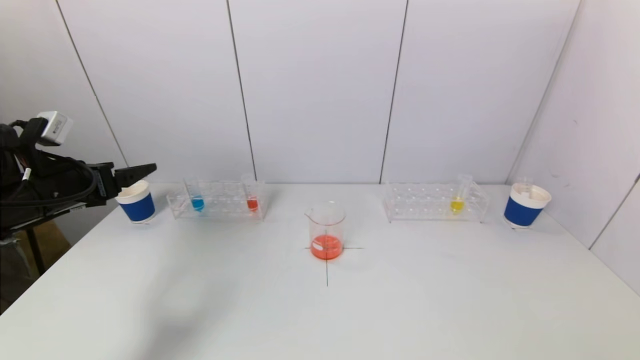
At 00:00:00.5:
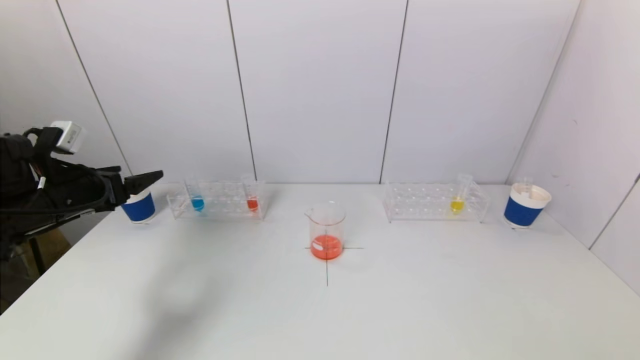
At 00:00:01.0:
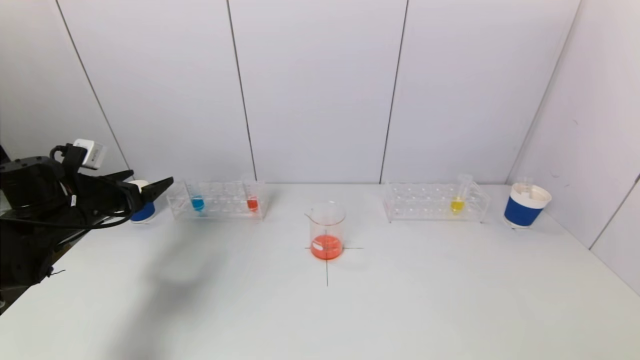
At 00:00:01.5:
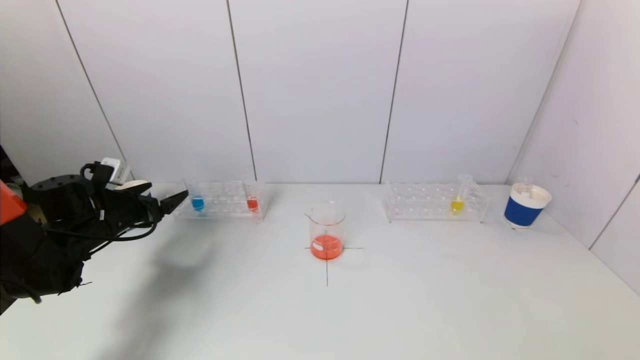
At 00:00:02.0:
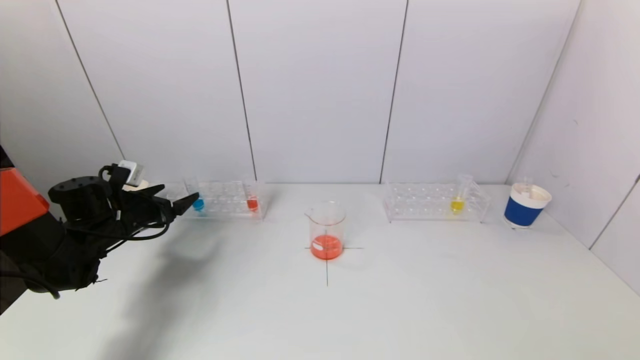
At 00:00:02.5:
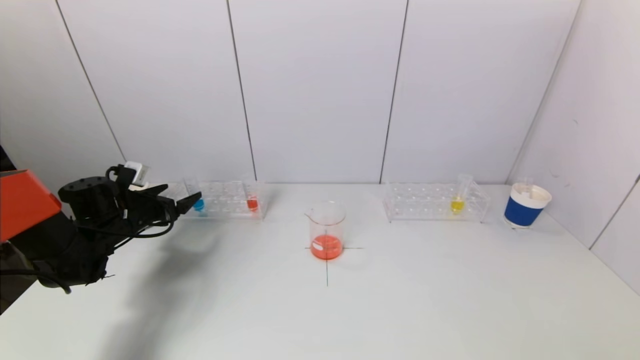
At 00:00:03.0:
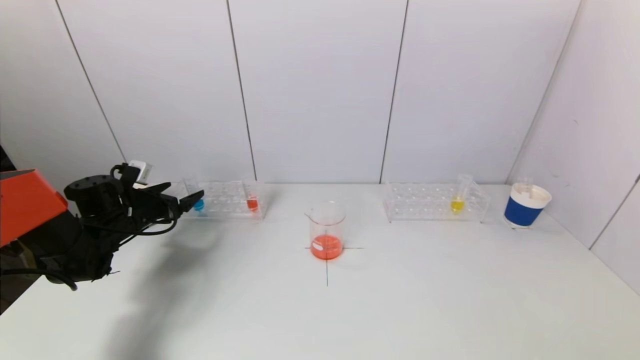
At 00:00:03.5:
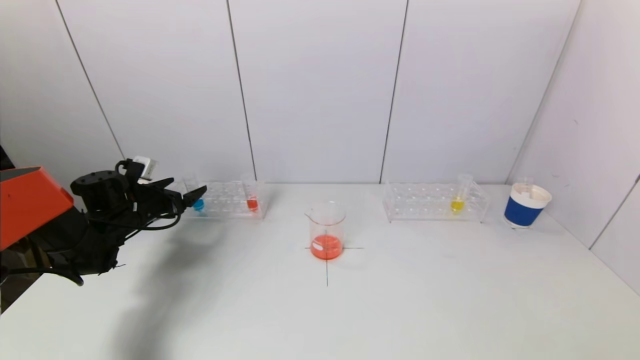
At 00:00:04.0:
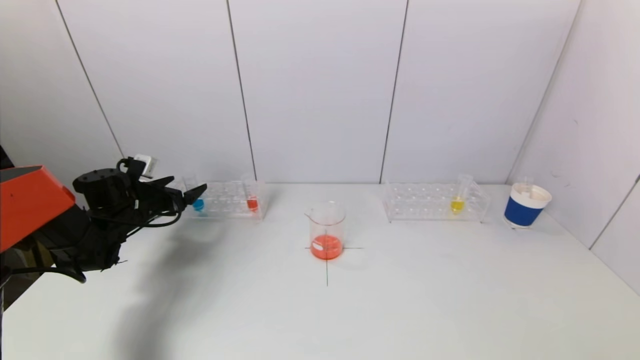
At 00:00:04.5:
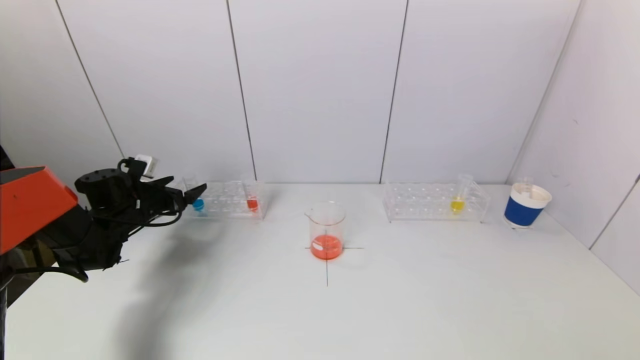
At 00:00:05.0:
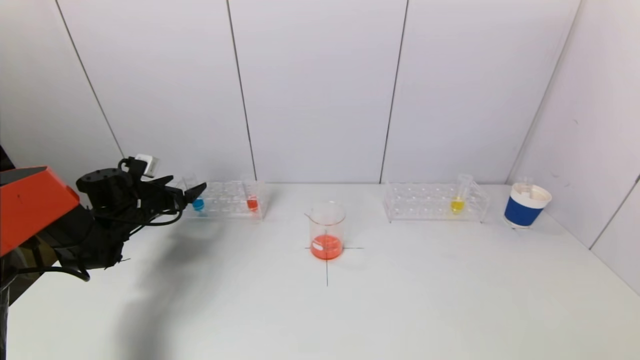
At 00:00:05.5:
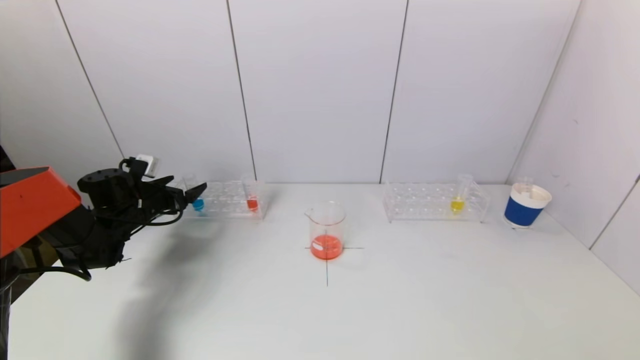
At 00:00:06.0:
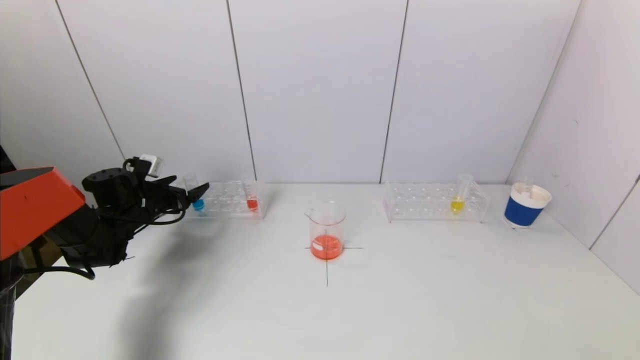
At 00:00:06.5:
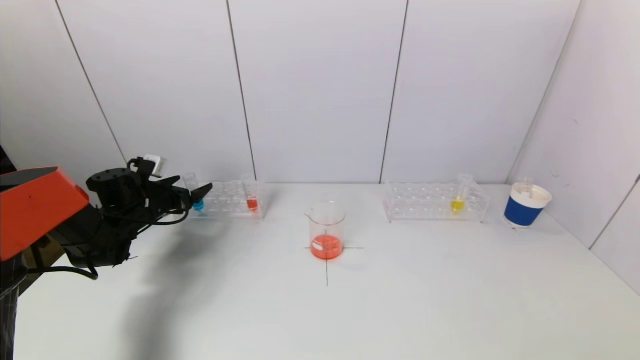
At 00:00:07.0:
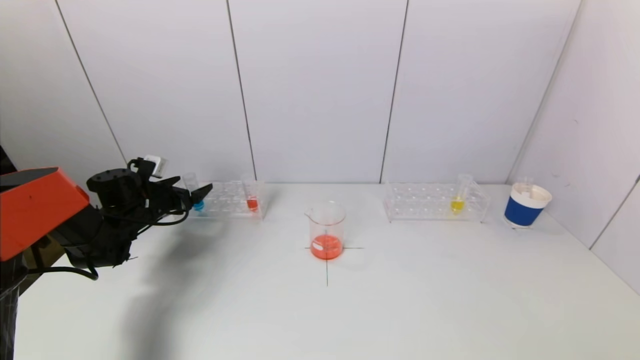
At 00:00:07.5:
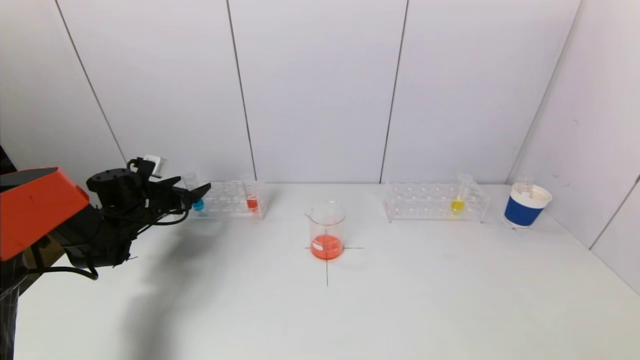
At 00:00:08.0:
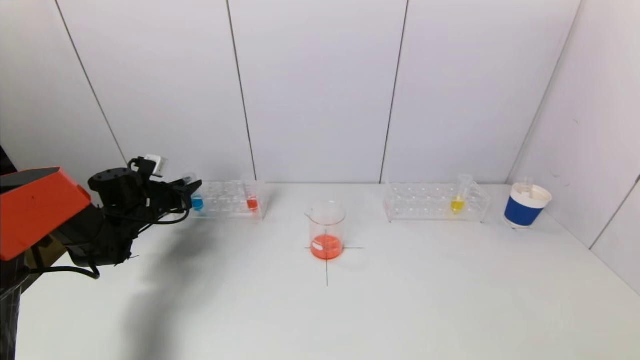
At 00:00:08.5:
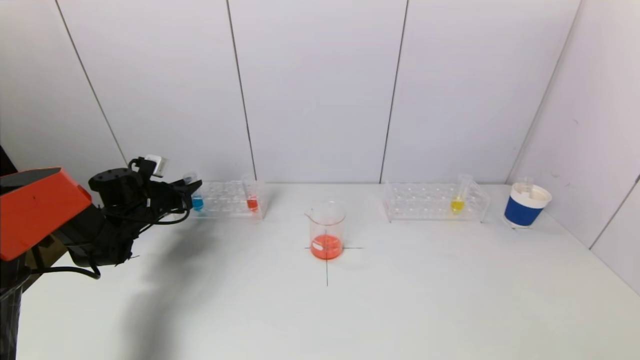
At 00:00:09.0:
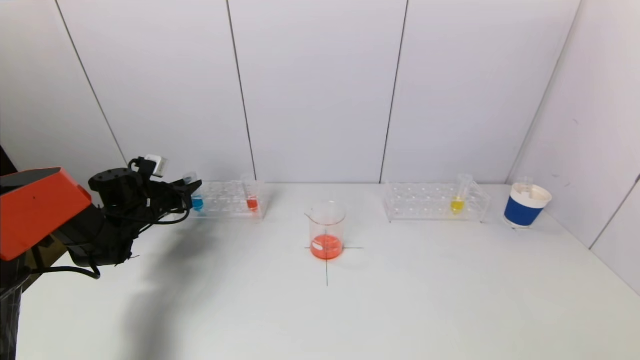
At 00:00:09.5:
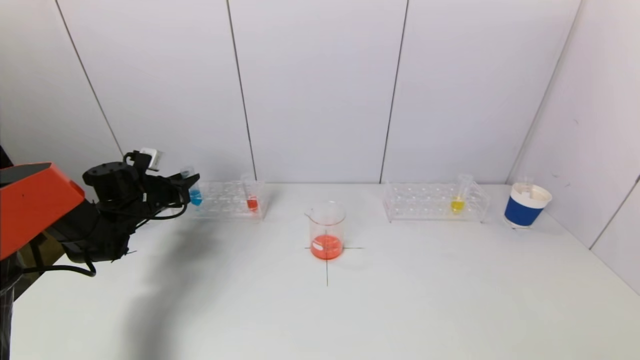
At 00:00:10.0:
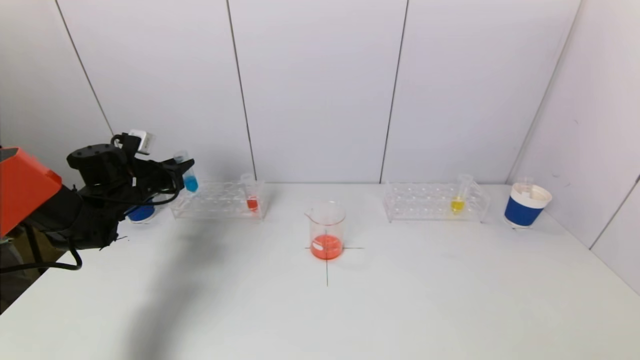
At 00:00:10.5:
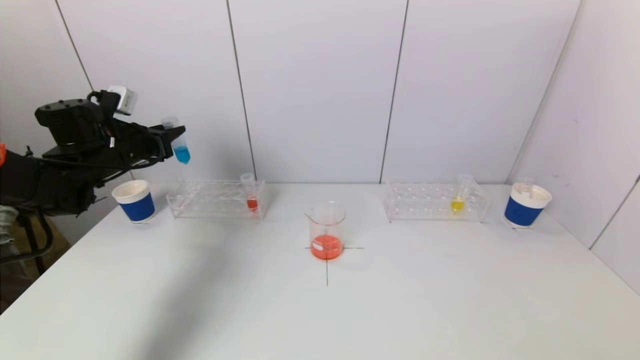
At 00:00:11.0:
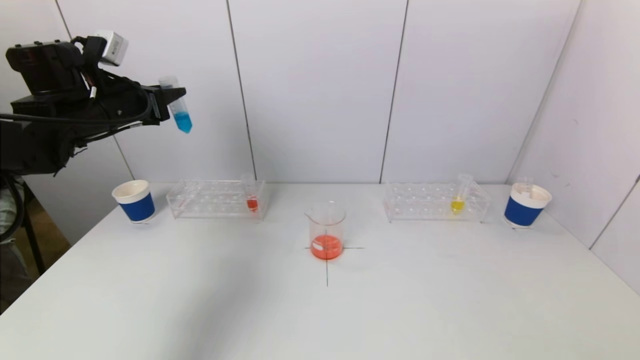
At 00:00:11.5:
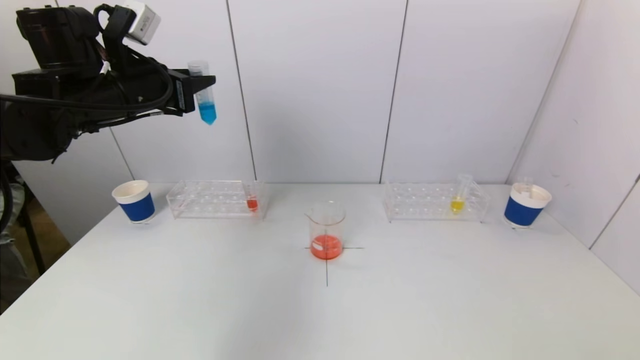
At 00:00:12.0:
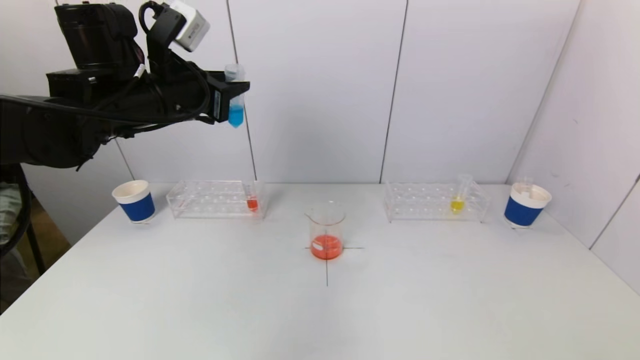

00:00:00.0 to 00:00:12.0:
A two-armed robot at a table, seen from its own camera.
Task of the whole recording: pick up a test tube with pigment on left test tube rack and a test tube with pigment on right test tube rack by grippers and pour them into the beaker.
Step, 00:00:00.0 to 00:00:08.0: Grasp the blue reagent with the left gripper.
00:00:00.0 to 00:00:02.0: The left gripper travels downward and forward by some 15 cm.
00:00:02.0 to 00:00:06.0: The grippers move only a little.
00:00:06.0 to 00:00:08.0: The left gripper closes its fingers.
00:00:08.0 to 00:00:10.0: The left gripper travels upward by roughly 5 cm.
00:00:10.0 to 00:00:12.0: The left gripper is displaced upward, to the right and backward by roughly 25 cm.

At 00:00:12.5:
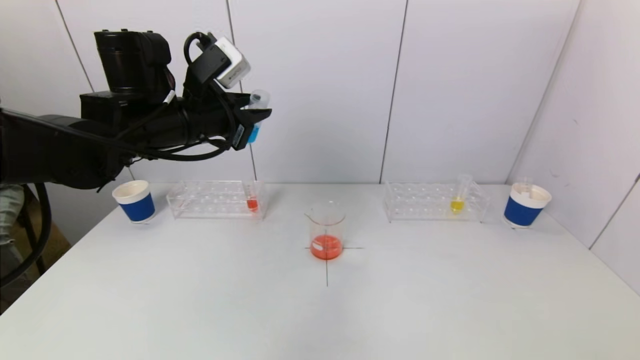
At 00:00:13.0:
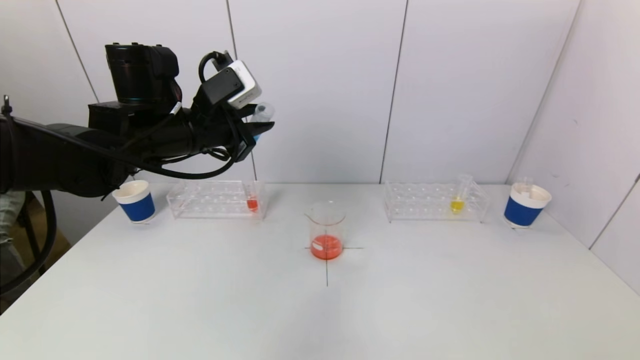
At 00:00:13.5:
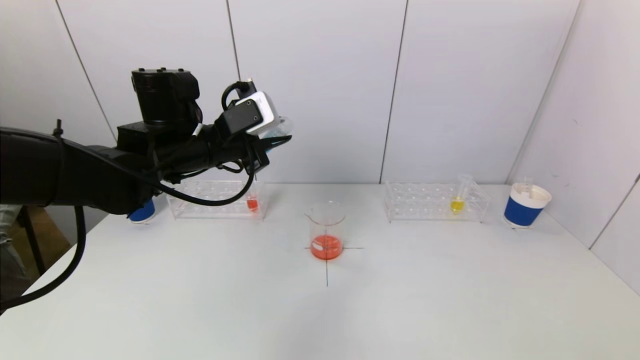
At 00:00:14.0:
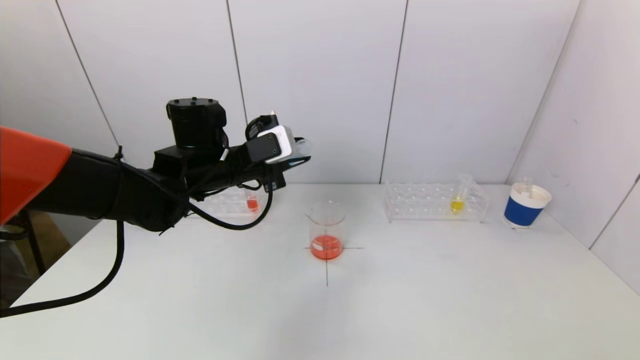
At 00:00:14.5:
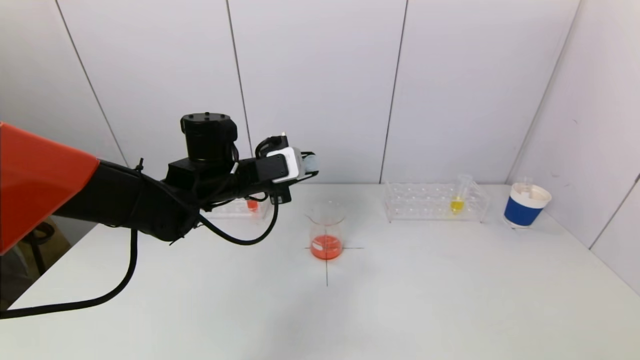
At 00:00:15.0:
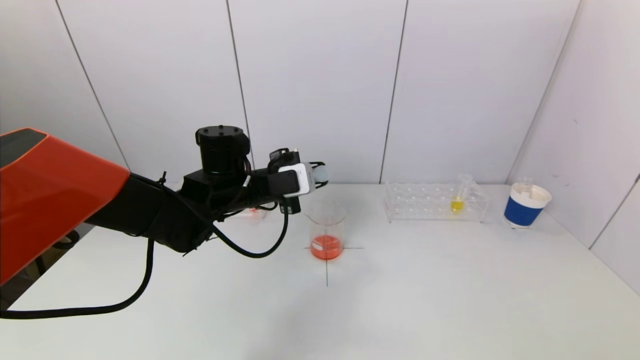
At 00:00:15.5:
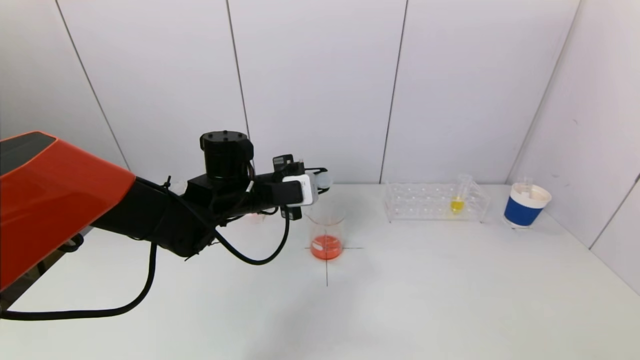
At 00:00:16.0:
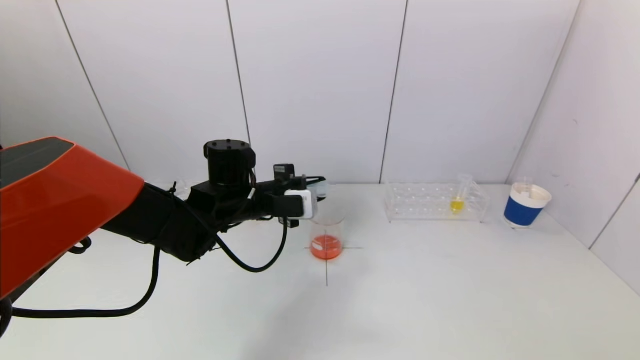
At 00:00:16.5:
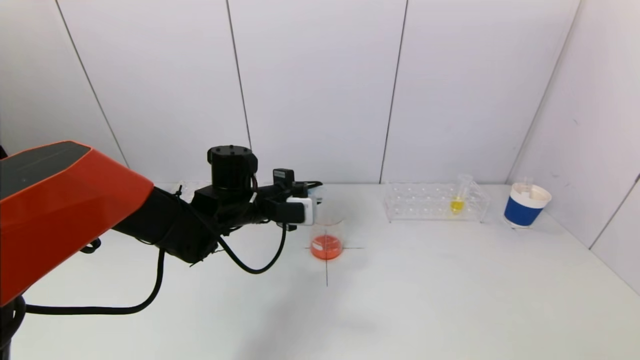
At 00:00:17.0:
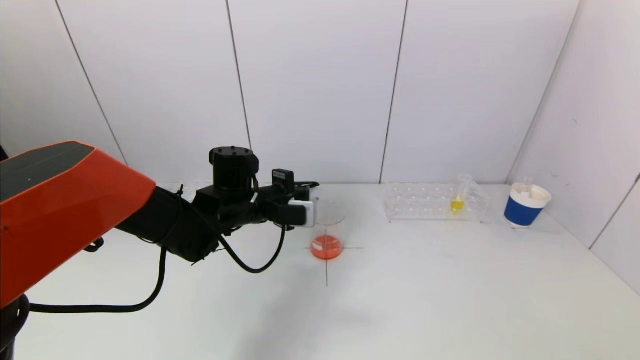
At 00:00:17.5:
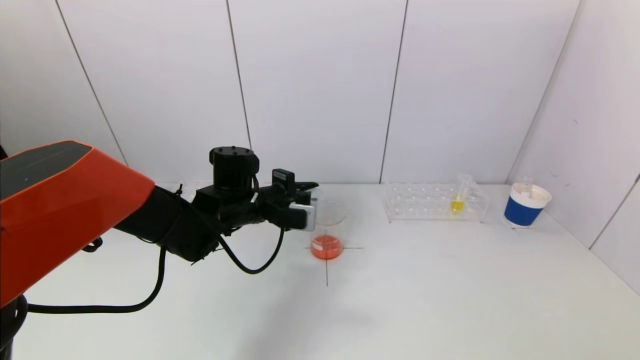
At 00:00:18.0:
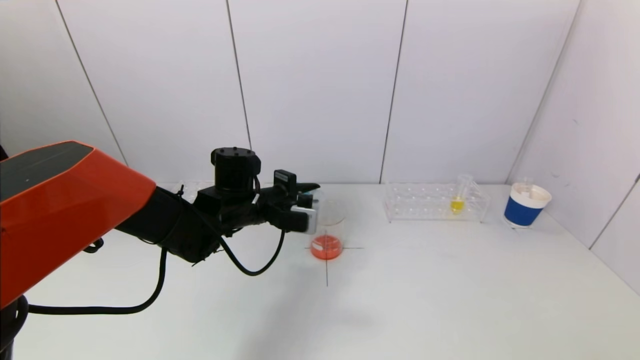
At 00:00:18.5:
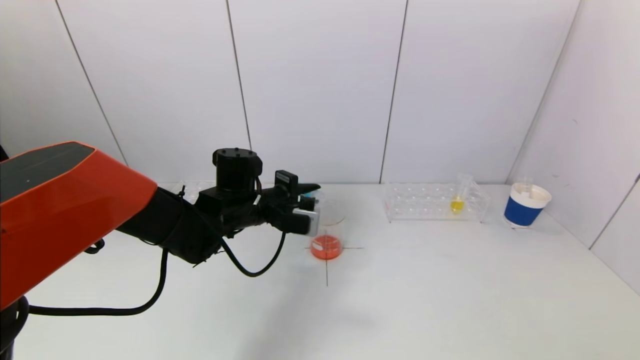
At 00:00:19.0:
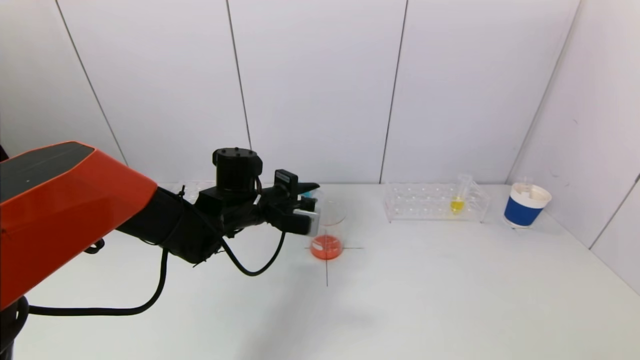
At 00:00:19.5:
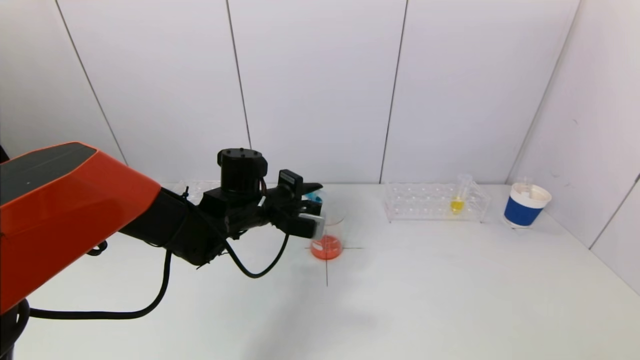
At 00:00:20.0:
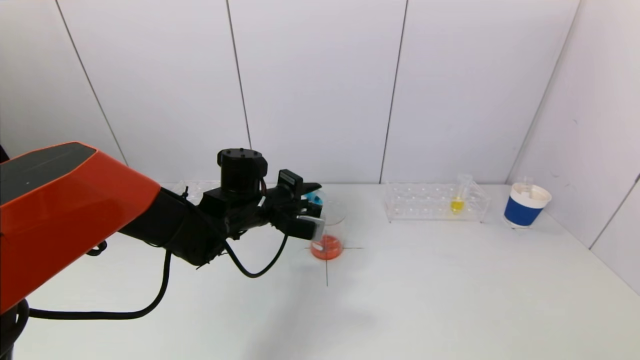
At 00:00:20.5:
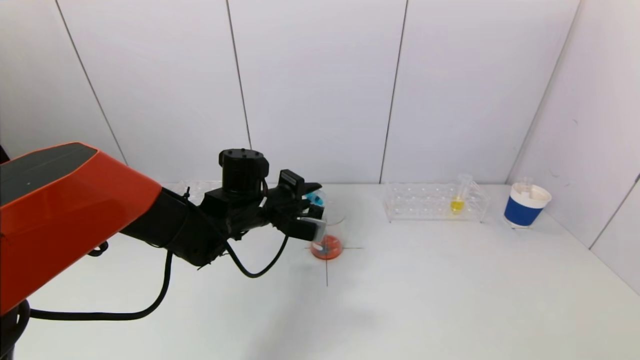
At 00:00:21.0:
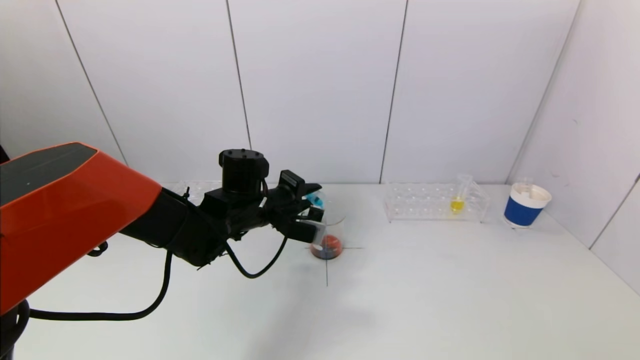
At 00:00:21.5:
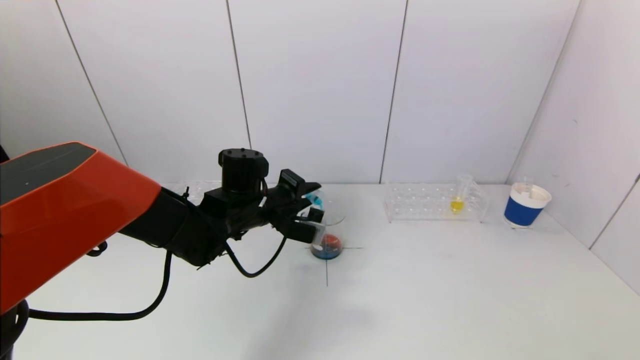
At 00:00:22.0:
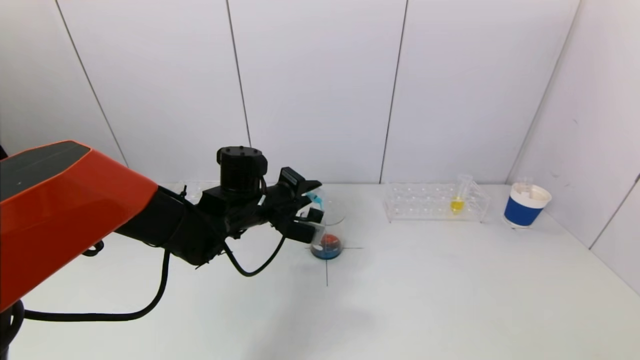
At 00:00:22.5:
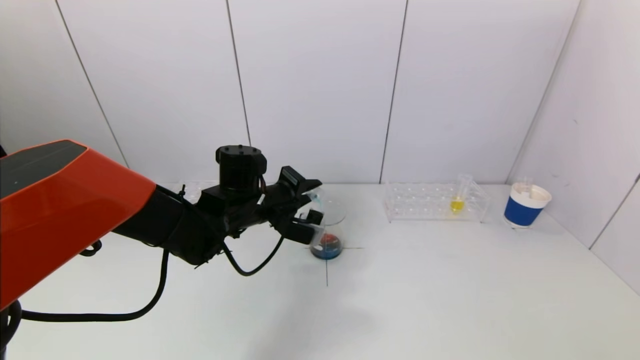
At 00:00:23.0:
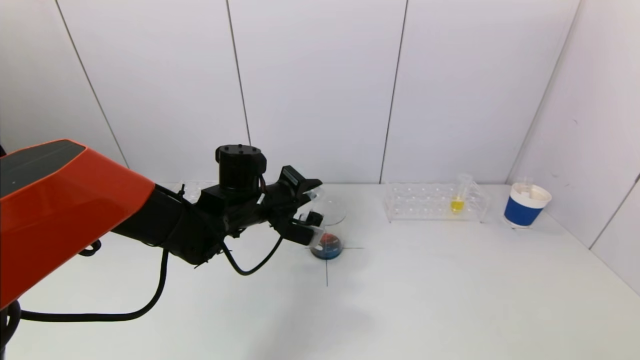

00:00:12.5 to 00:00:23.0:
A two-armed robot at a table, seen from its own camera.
Task of the whole recording: pick up a test tube with pigment on left test tube rack and a test tube with pigment on right test tube rack by grippers and pour them into the beaker.
00:00:12.5 to 00:00:14.5: The left gripper heads downward, covering roughly 10 cm.
00:00:14.5 to 00:00:16.5: The left gripper heads downward, covering roughly 5 cm.
00:00:16.5 to 00:00:19.0: The grippers stay close to where they were, moving slightly.
00:00:19.0 to 00:00:23.0: The grippers make only small movements.
